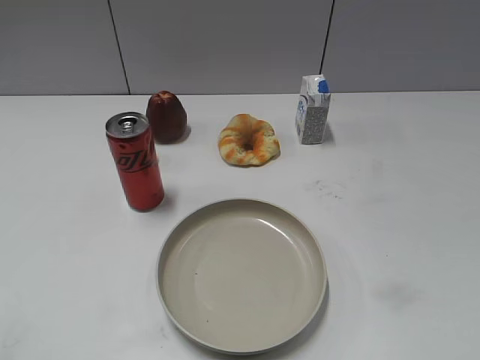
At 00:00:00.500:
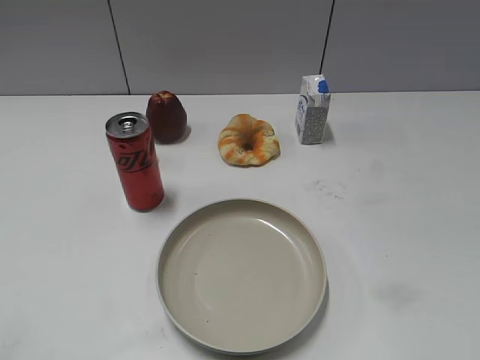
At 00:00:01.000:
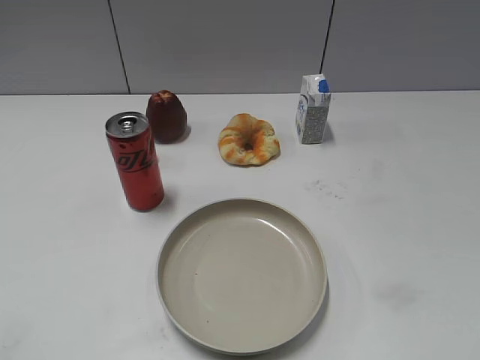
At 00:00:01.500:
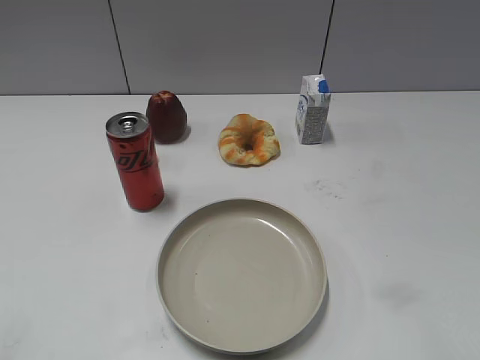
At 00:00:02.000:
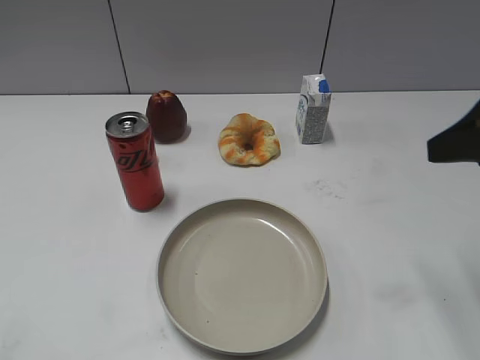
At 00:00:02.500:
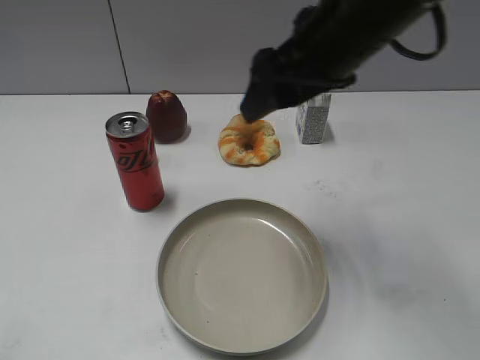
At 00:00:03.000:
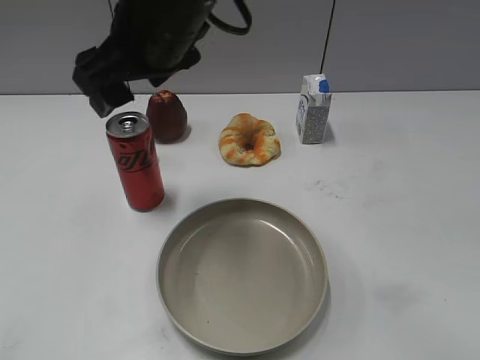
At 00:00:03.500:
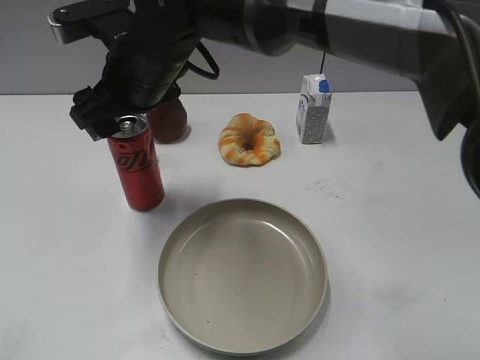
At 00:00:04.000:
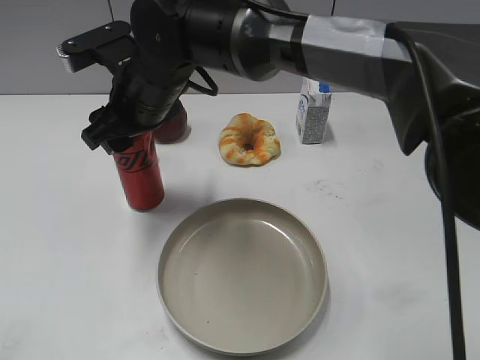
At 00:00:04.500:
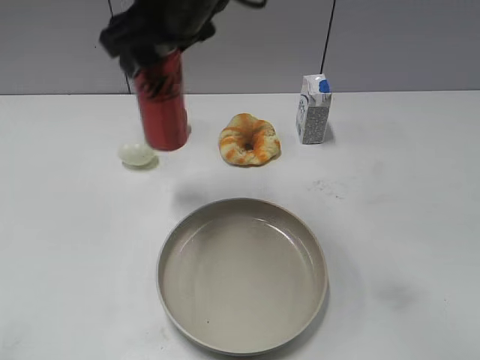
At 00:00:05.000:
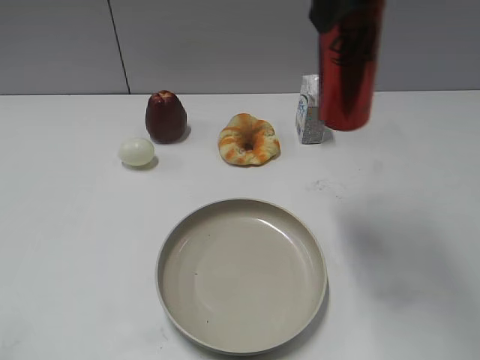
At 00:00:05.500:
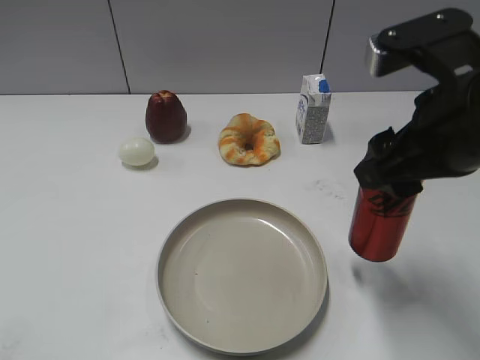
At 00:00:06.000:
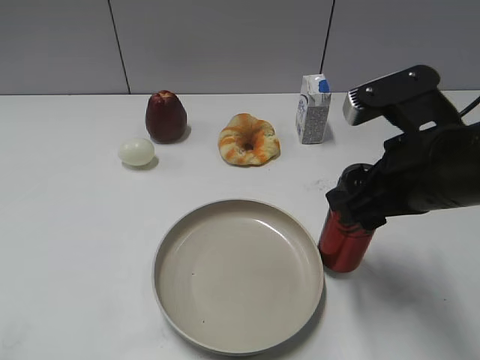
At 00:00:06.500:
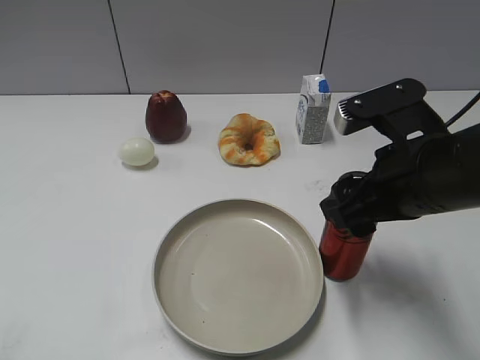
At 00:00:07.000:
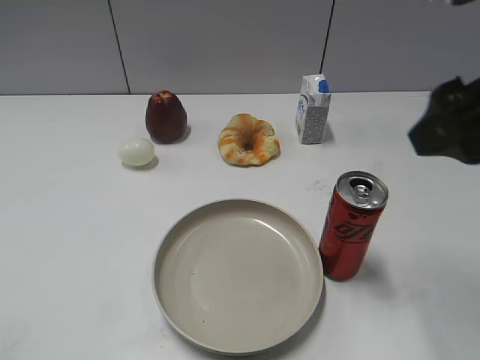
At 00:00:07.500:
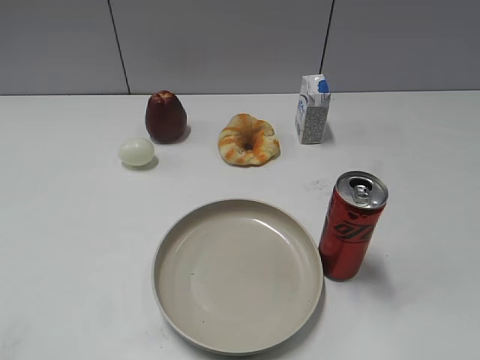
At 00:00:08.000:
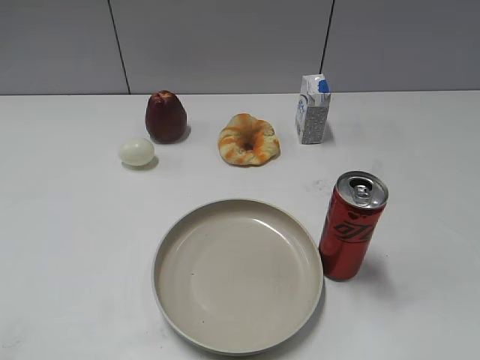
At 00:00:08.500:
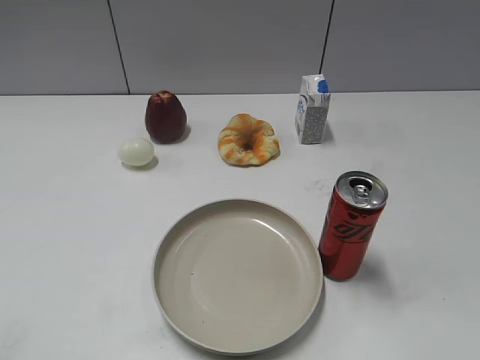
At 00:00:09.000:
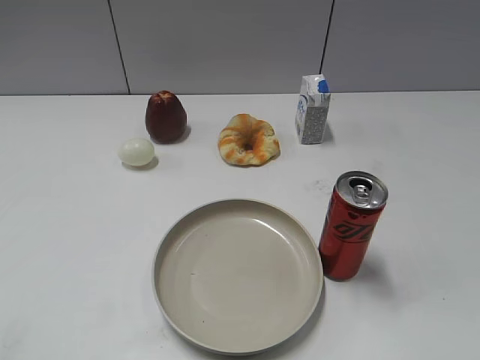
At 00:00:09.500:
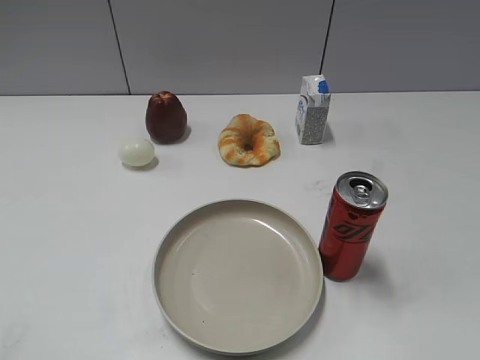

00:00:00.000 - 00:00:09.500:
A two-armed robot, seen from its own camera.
Step, 00:00:01.000 - 00:00:04.000: Grasp the cola with right gripper.
Step, 00:00:04.500 - 00:00:06.500: Place the cola on the table with right gripper.
00:00:02.000 - 00:00:04.000: The right gripper moves to the left, approximately 35 cm, and closes up.
00:00:04.000 - 00:00:05.500: The right gripper moves to the right and backward, roughly 30 cm.
00:00:05.500 - 00:00:07.500: The right gripper shifts about 15 cm backward and to the right, and opens up.

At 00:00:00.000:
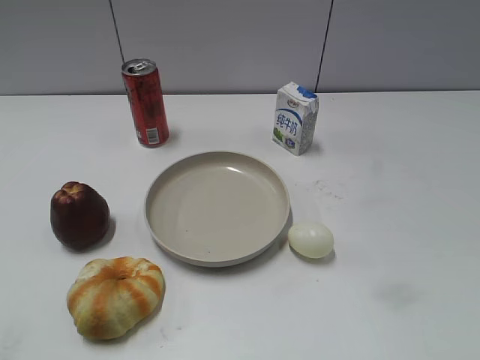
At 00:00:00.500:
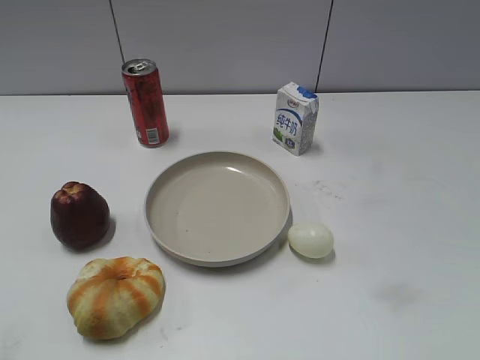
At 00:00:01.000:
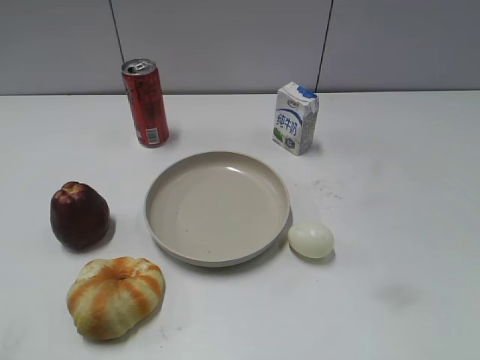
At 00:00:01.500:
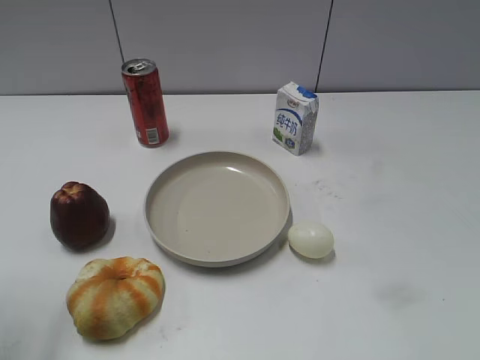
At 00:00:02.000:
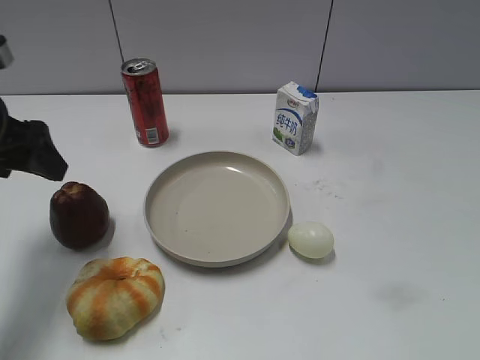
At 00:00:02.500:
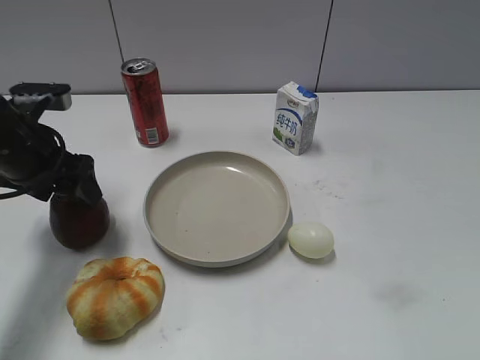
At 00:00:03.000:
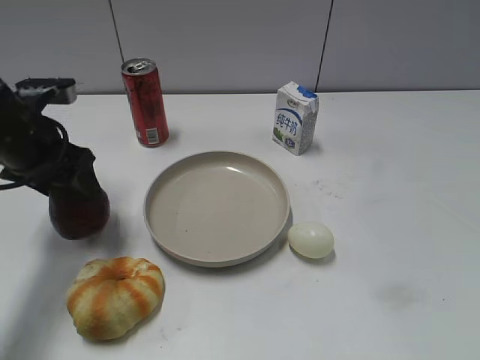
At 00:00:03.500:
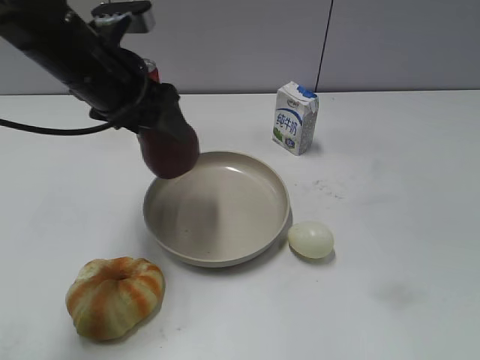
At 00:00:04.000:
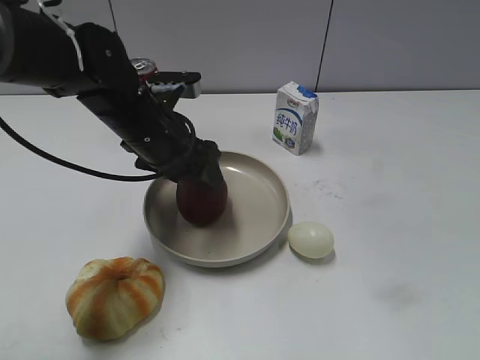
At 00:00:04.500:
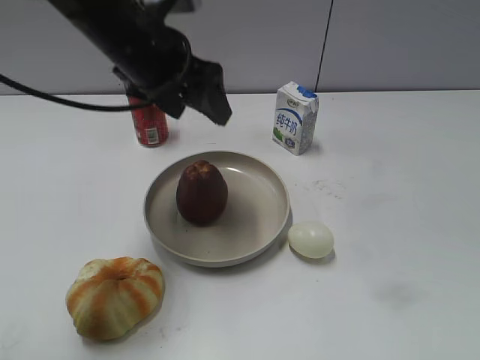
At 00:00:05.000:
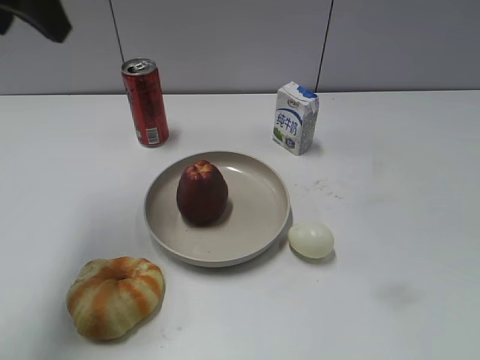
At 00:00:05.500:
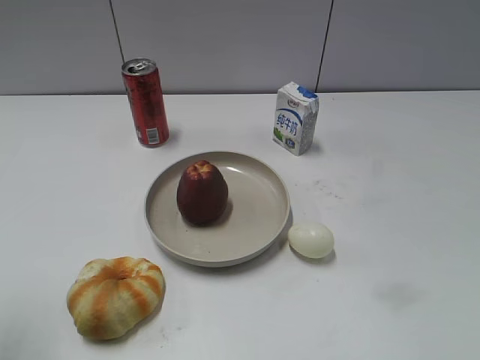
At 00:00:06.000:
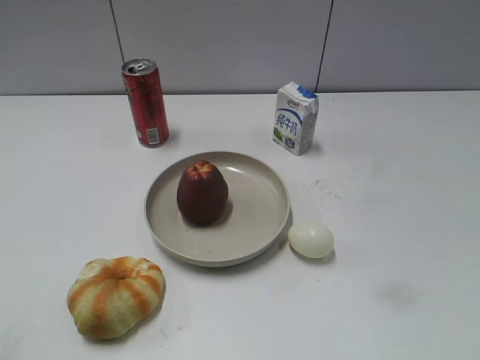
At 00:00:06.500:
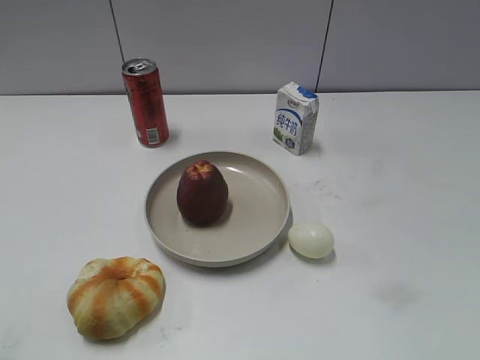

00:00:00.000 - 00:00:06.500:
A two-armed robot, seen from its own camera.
Step, 00:00:01.000 - 00:00:02.500: Grasp the apple with left gripper.
Step, 00:00:03.000 - 00:00:04.000: Place the apple on the plate with left gripper.
00:00:02.000 - 00:00:04.500: The left gripper is displaced to the right by roughly 15 cm, and closes, then reopens.
00:00:04.500 - 00:00:06.500: The left gripper goes some 40 cm backward and to the left, and closes up.
